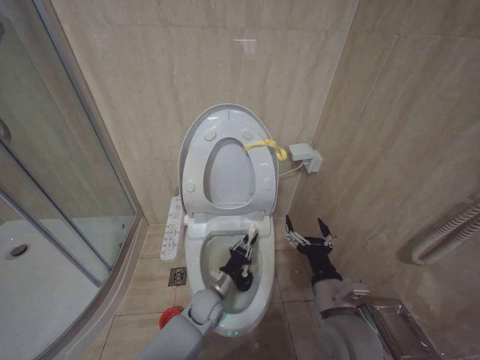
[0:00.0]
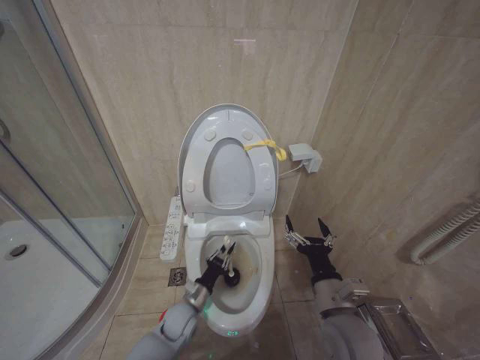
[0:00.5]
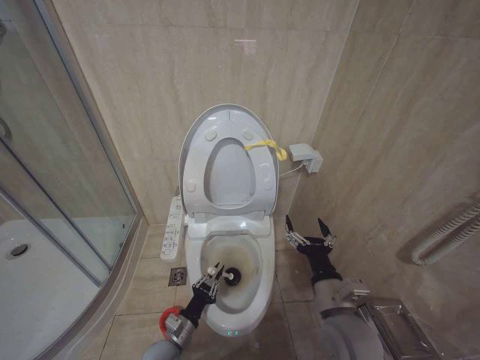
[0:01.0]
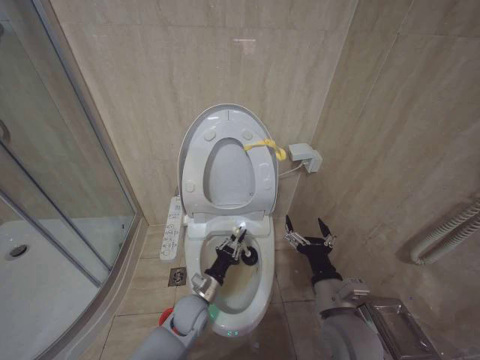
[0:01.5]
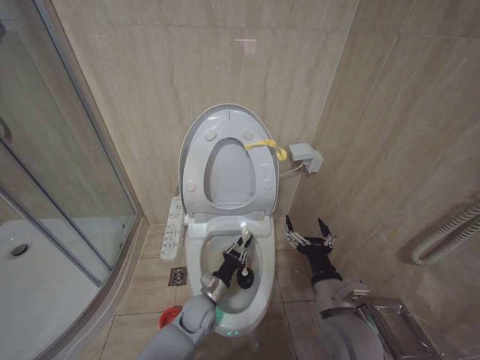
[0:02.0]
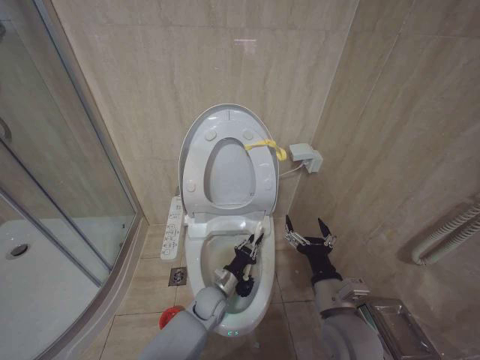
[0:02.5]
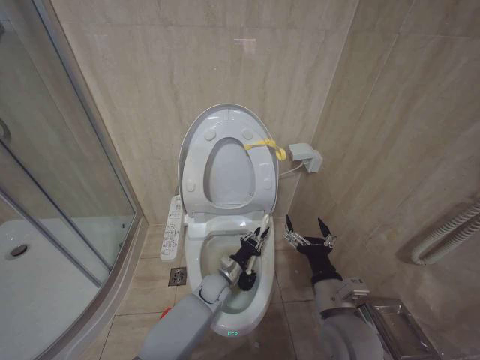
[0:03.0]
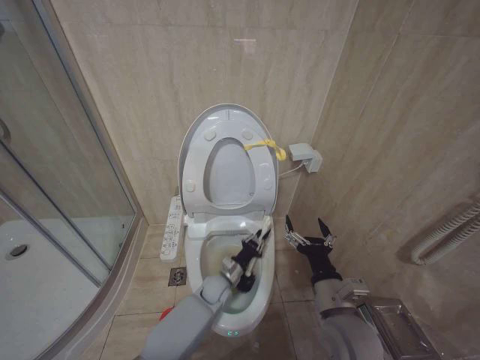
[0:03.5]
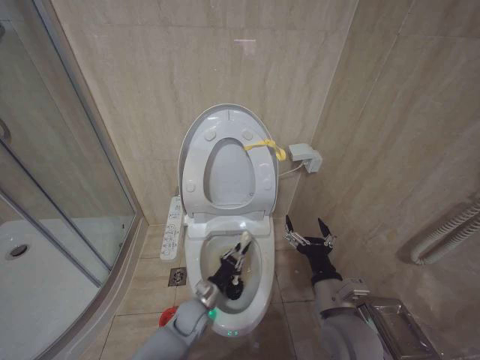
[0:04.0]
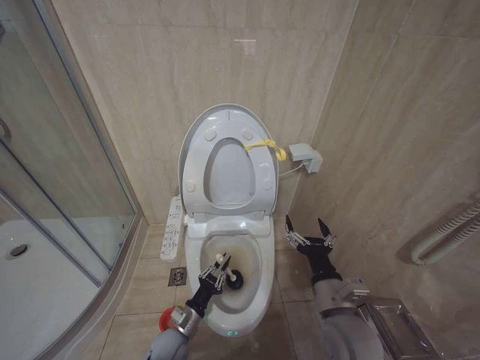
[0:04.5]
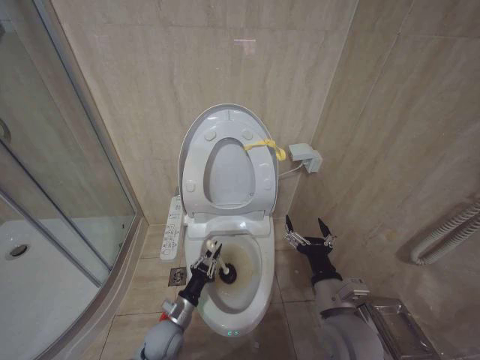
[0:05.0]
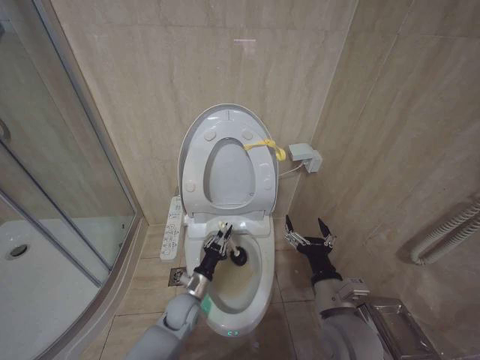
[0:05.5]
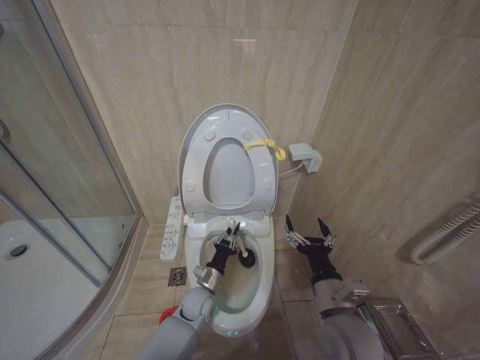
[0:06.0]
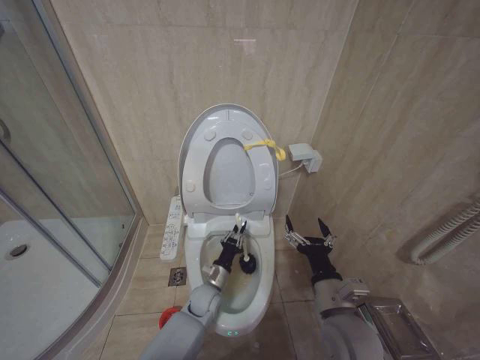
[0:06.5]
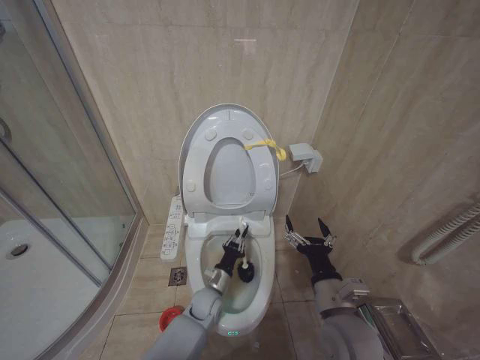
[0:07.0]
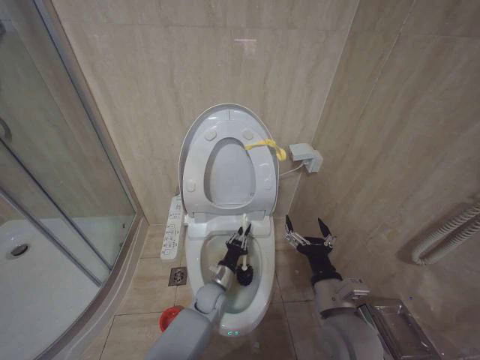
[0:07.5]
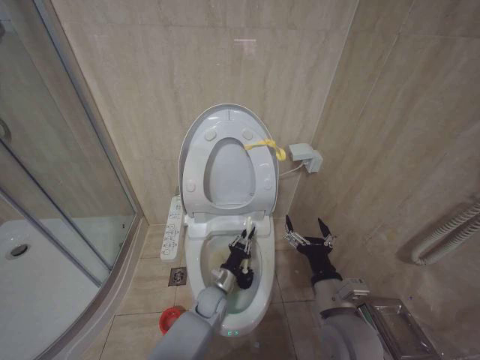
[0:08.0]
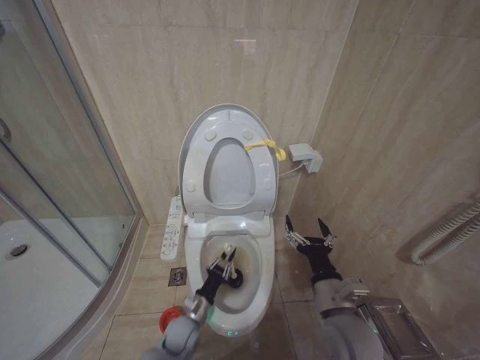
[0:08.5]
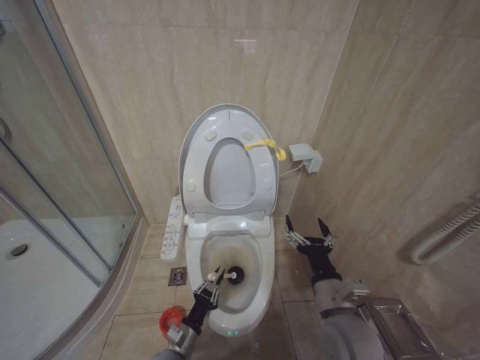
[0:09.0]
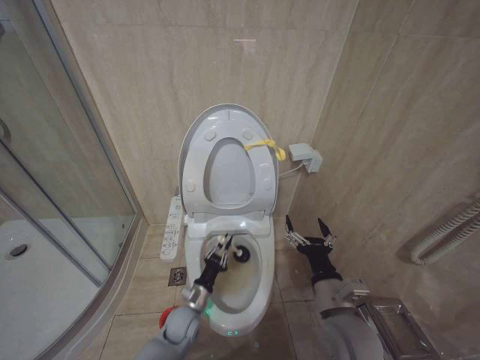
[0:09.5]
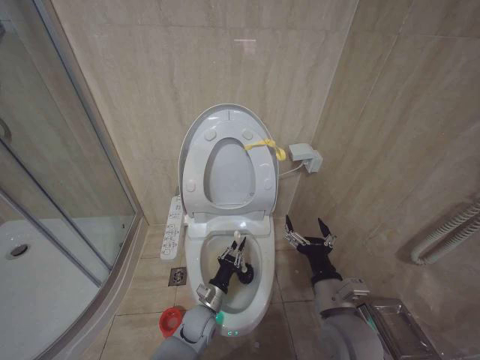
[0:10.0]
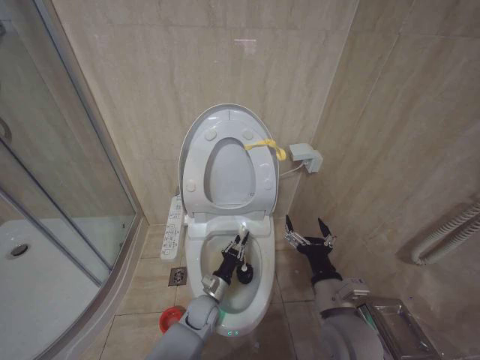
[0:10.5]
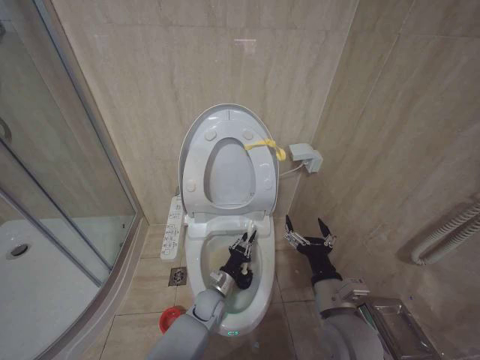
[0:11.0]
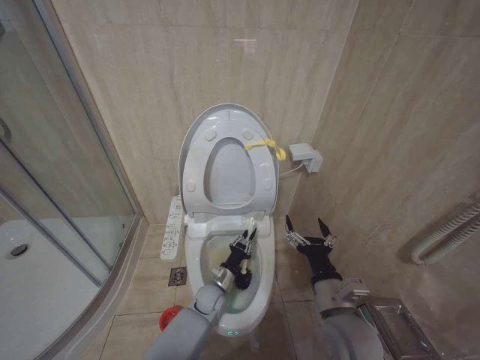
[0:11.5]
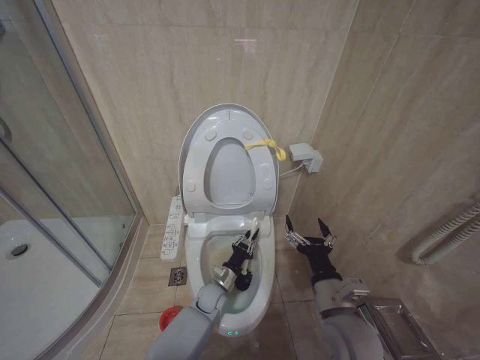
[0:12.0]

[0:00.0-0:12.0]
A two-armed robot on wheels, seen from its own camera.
Task of the whole recording: Open the toilet lid, clean the toilet bowl with a toilet brush, close the toilet lid, and flush.
0:00.0 to 0:02.0: The left gripper goes to the left and returns, approximately 10 cm each way.
0:04.0 to 0:06.0: The left gripper moves approximately 5 cm backward and comes back.
0:06.0 to 0:08.0: The left gripper changes place by about 5 cm.
0:08.0 to 0:10.0: The left gripper travels backward by some 5 cm.
0:10.0 to 0:12.0: The left gripper shifts approximately 5 cm forward.

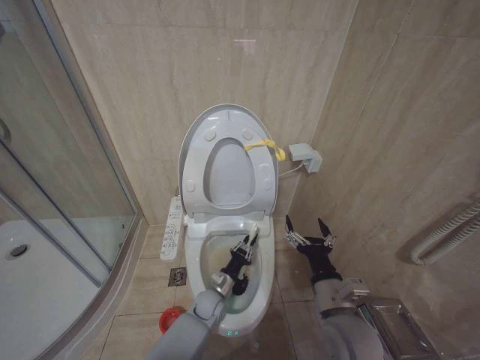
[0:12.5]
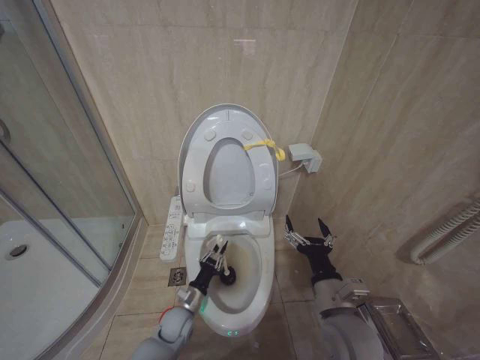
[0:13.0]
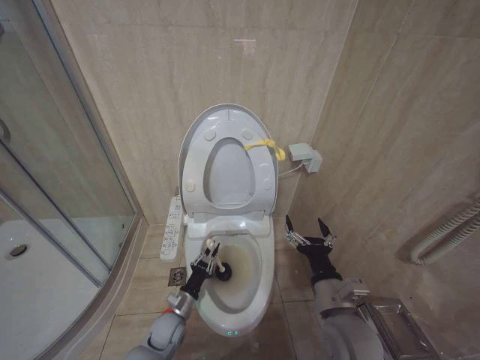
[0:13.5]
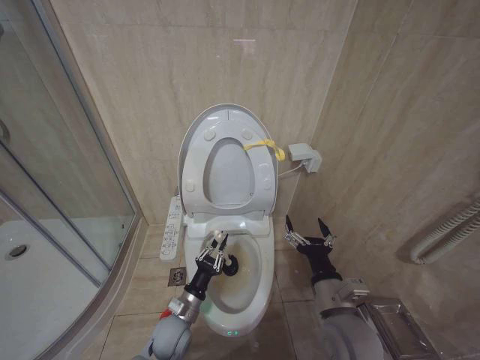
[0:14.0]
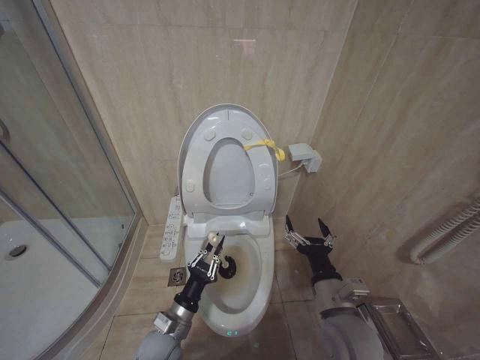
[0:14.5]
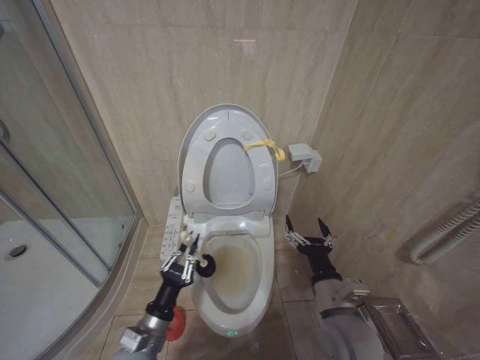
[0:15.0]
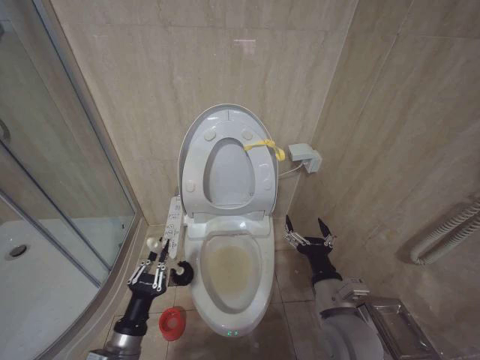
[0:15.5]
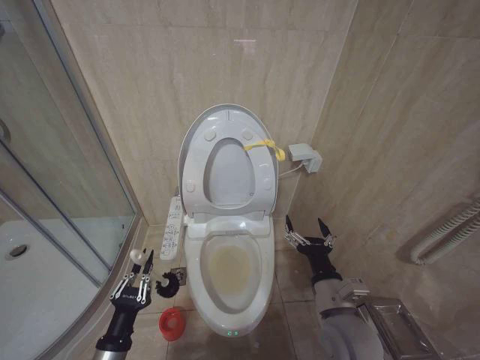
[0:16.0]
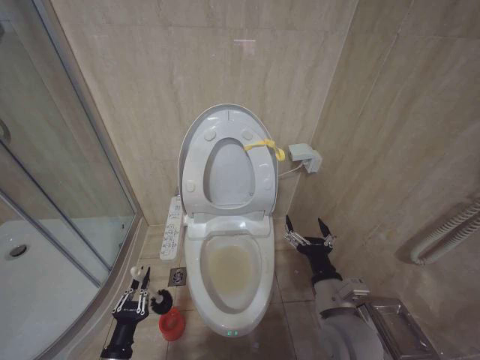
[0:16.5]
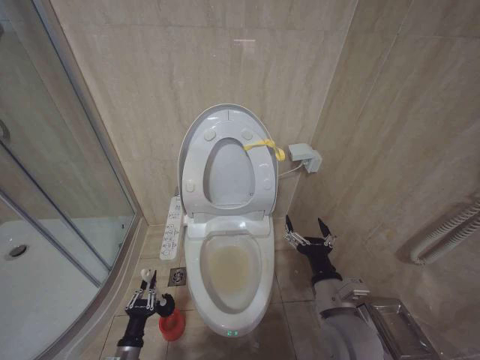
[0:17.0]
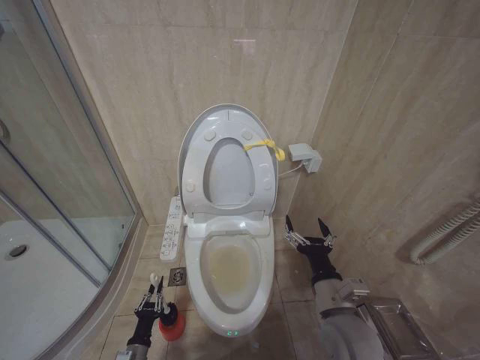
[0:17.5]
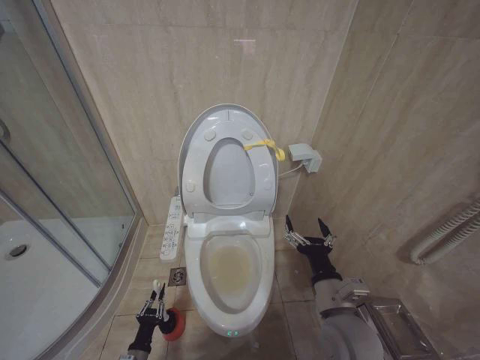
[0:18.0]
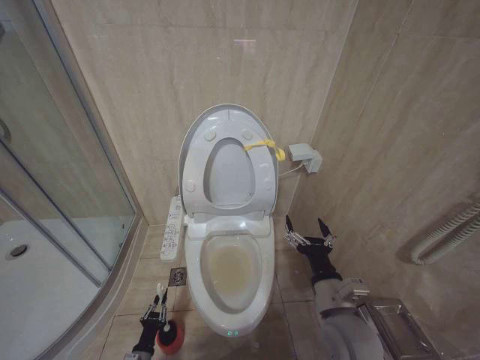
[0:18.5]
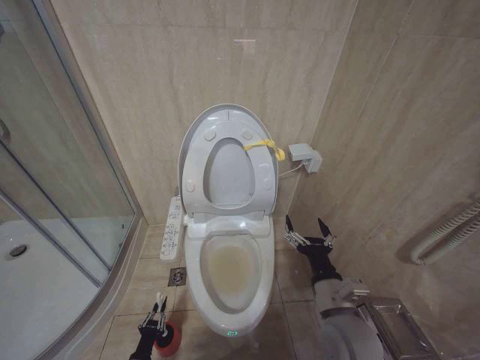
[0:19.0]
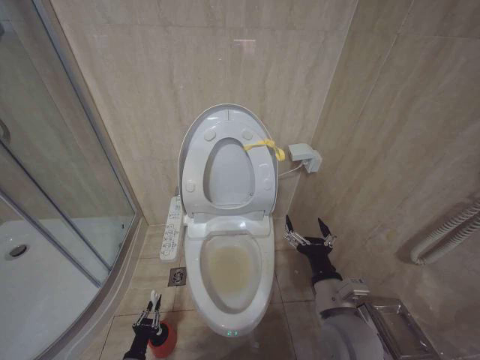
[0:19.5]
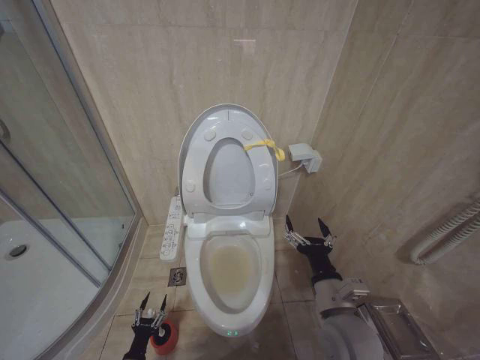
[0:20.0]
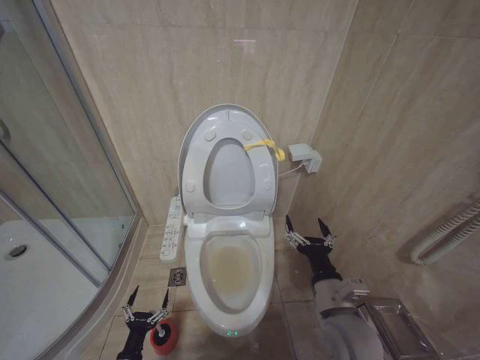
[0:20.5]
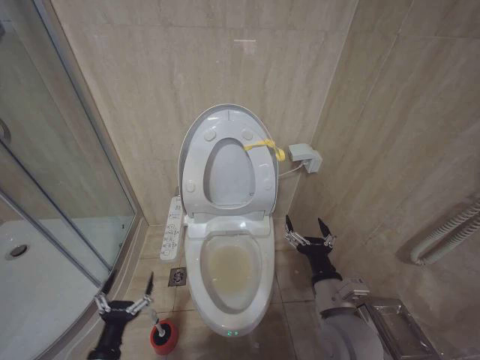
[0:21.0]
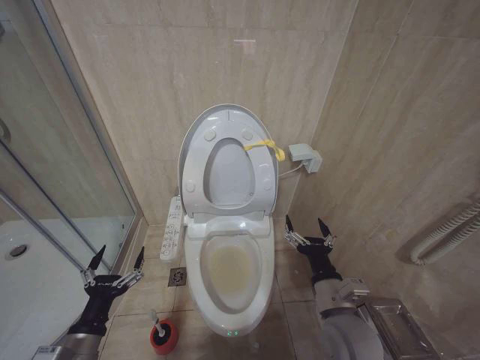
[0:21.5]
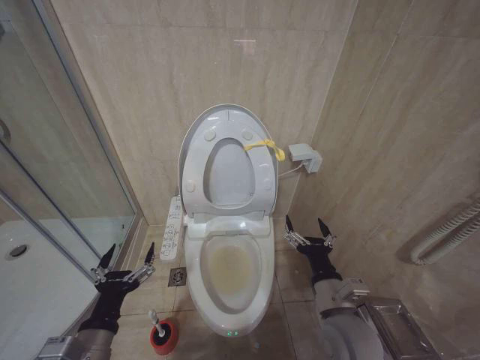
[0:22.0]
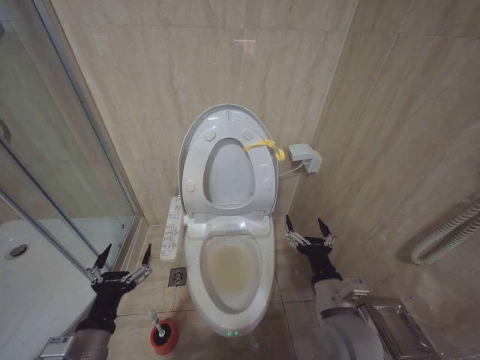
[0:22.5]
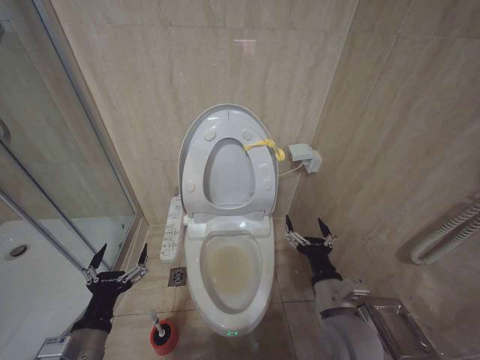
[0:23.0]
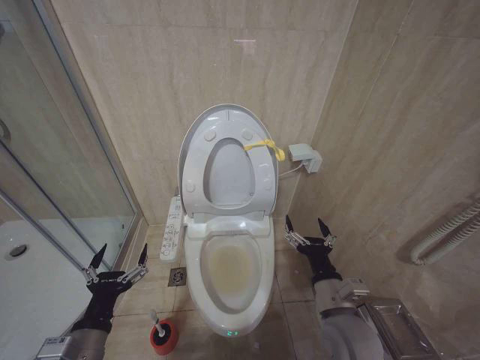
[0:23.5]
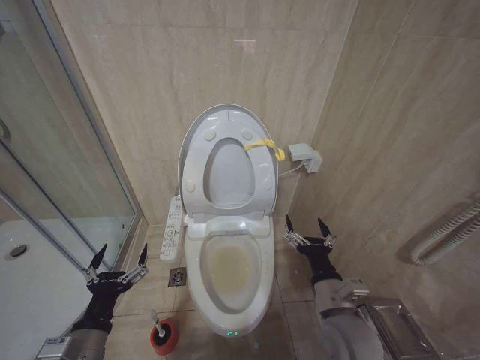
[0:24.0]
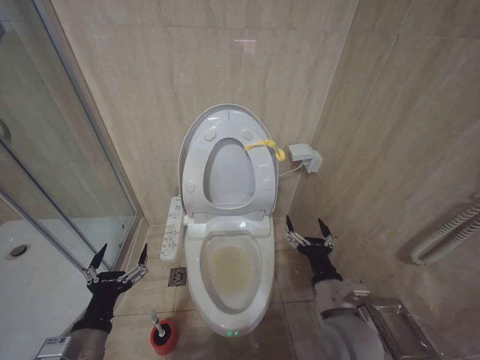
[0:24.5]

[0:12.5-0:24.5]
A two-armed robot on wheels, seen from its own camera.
Task of the whole recording: Open the toilet lid, clean the toilet bowl with a toilet brush, close the toilet lid, and flush.
0:12.5 to 0:14.5: The left gripper heads backward, to the left and upward, covering approximately 20 cm.
0:14.5 to 0:16.5: The left gripper goes about 15 cm to the left and backward.
0:16.5 to 0:18.5: The left gripper shifts approximately 20 cm downward.
0:18.5 to 0:20.5: The left gripper shifts some 5 cm upward, and opens.
0:20.5 to 0:22.5: The left gripper heads upward, covering roughly 30 cm.
0:22.5 to 0:24.5: The two grippers keep their place.

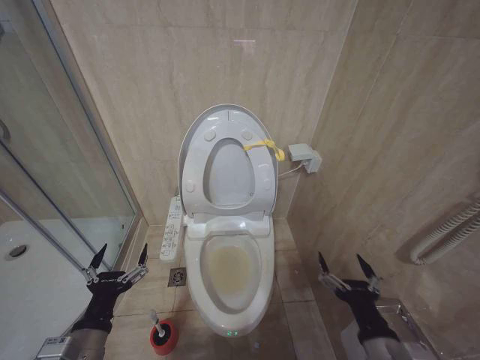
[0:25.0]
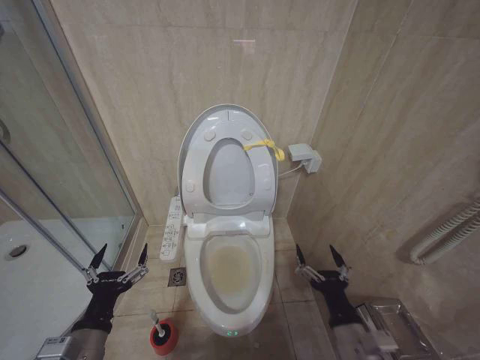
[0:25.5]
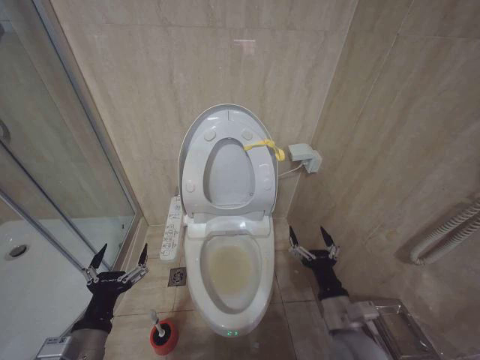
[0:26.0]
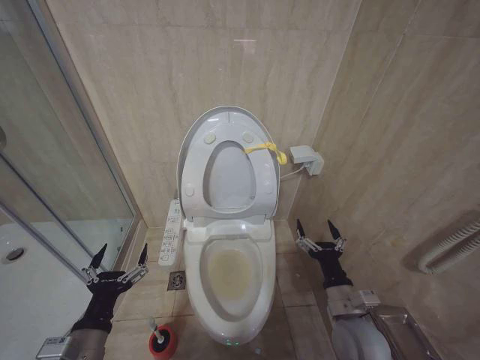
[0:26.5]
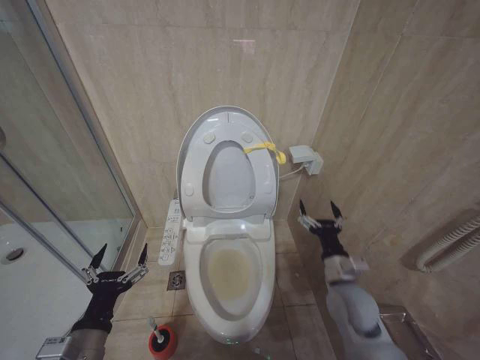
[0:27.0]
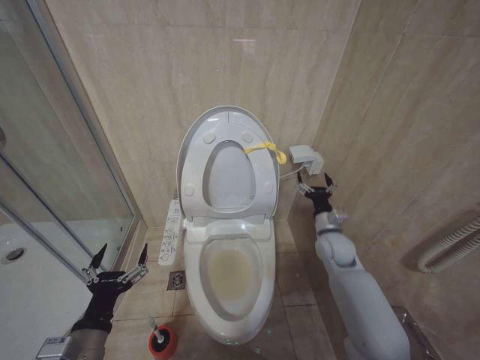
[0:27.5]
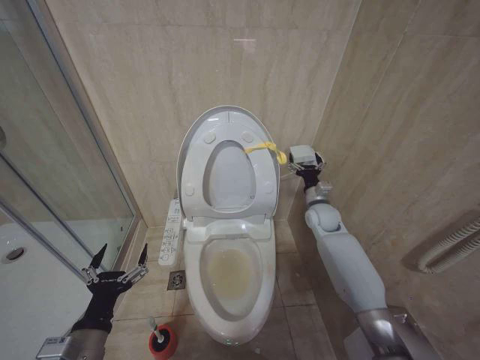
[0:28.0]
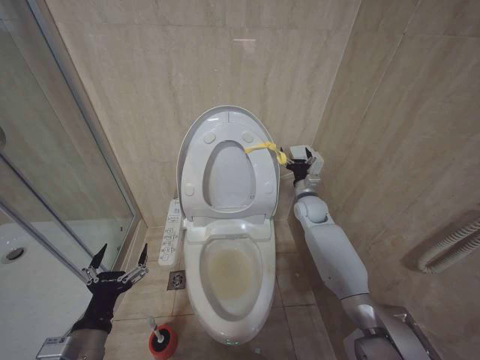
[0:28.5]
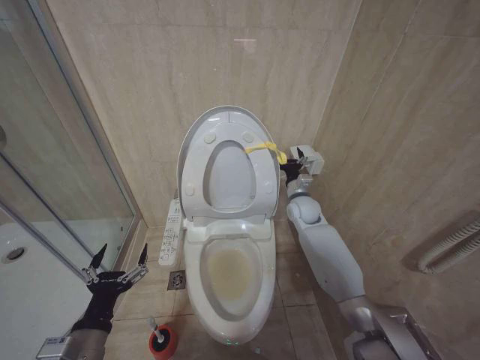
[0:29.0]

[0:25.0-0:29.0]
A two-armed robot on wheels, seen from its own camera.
Task of the whole recording: Open the toilet lid, clean the toilet bowl with a toilet brush, close the toilet lid, and flush.
0:25.0 to 0:27.0: The right gripper heads forward, covering roughly 15 cm.
0:27.0 to 0:29.0: The right gripper heads forward, covering roughly 25 cm.
